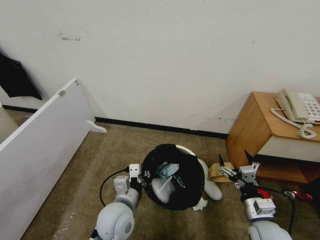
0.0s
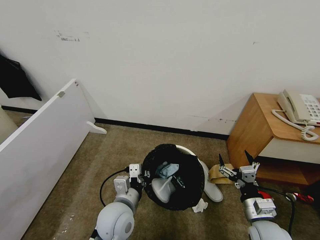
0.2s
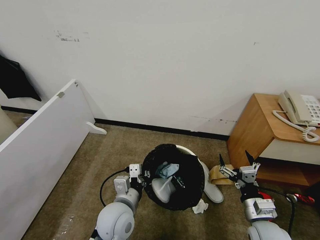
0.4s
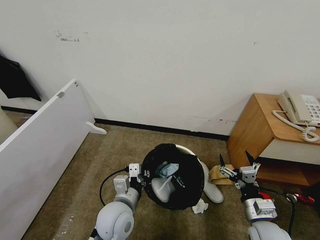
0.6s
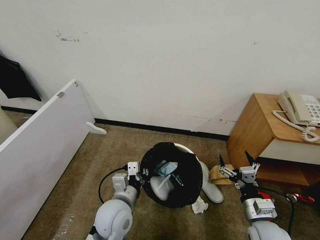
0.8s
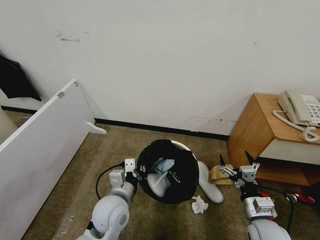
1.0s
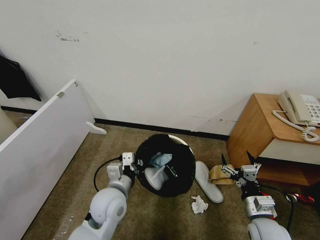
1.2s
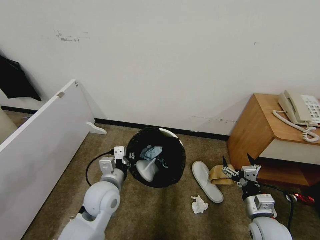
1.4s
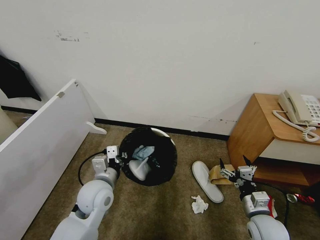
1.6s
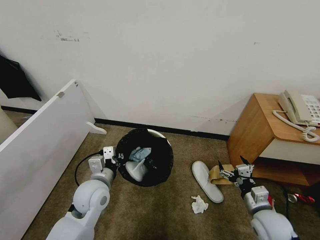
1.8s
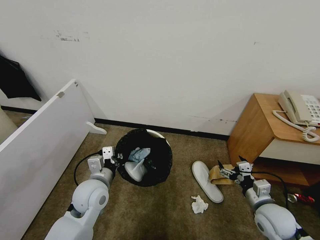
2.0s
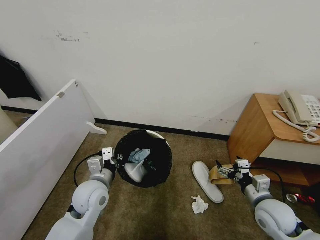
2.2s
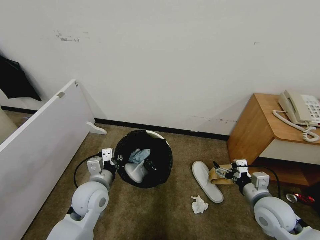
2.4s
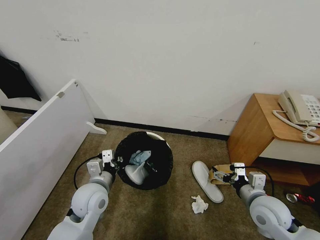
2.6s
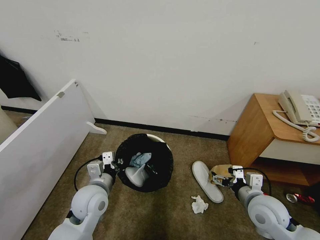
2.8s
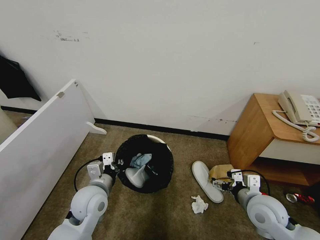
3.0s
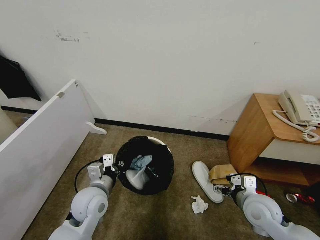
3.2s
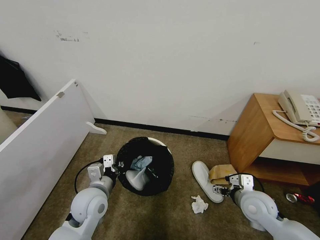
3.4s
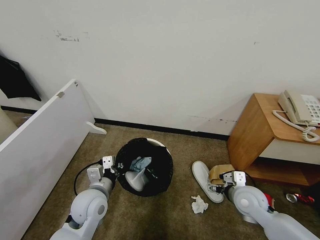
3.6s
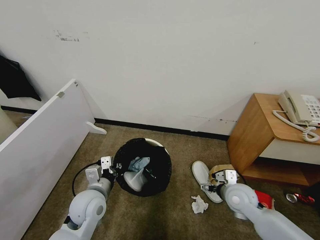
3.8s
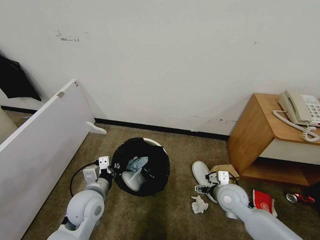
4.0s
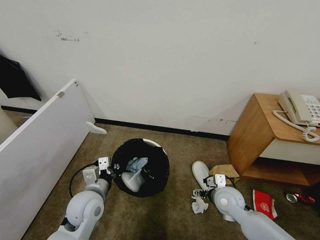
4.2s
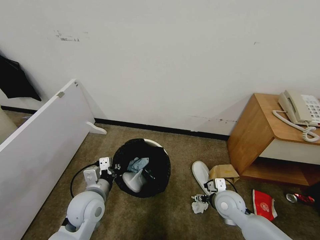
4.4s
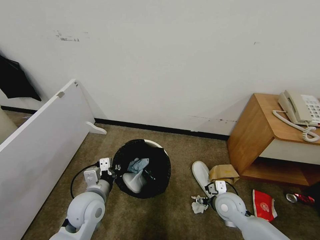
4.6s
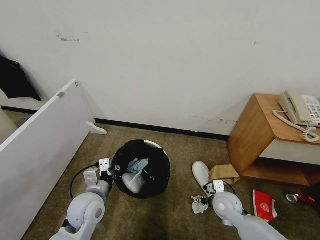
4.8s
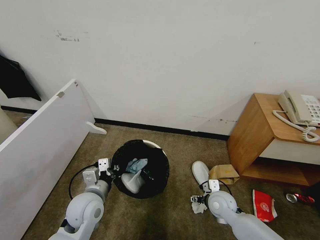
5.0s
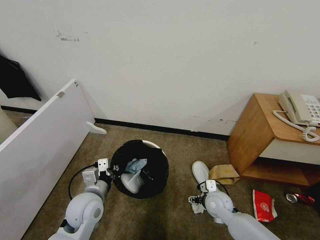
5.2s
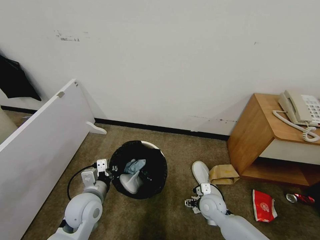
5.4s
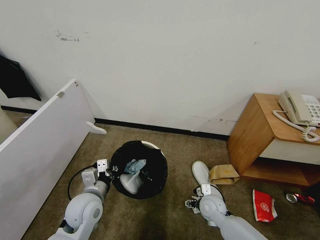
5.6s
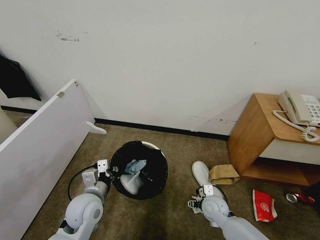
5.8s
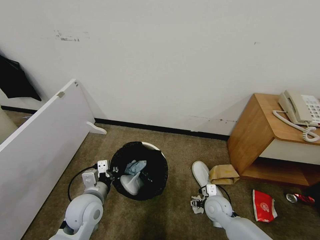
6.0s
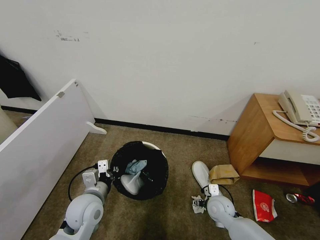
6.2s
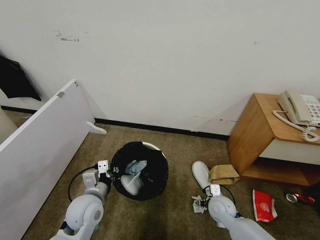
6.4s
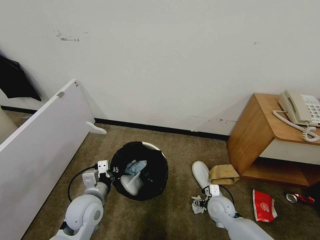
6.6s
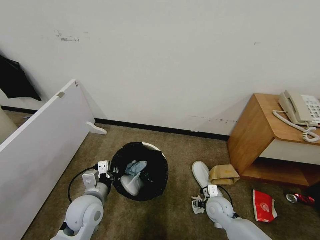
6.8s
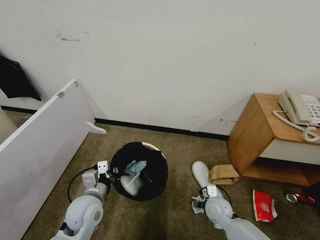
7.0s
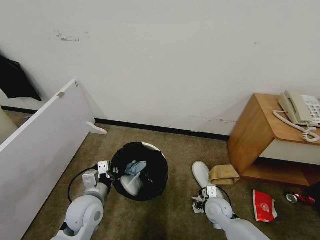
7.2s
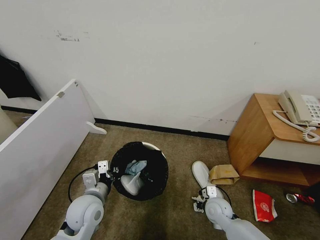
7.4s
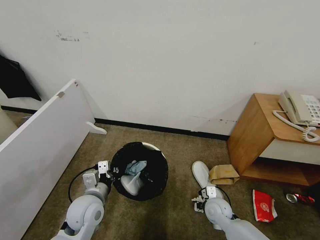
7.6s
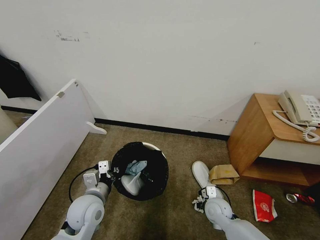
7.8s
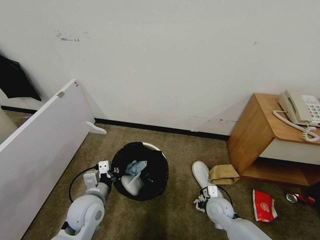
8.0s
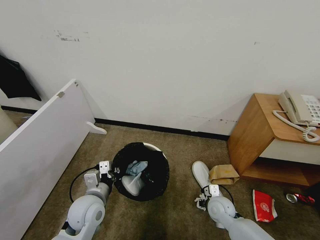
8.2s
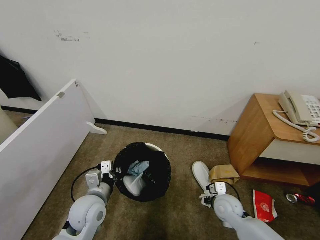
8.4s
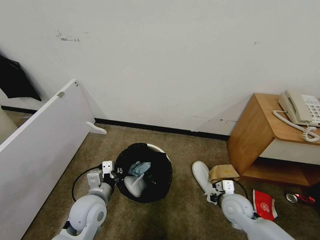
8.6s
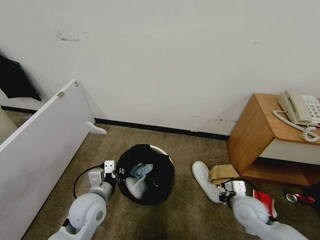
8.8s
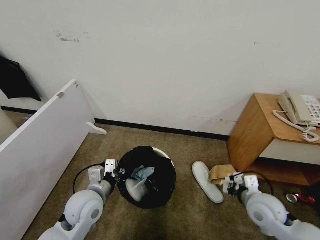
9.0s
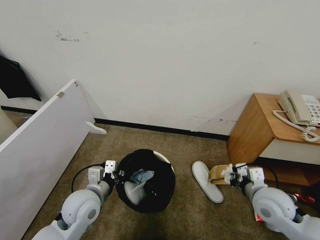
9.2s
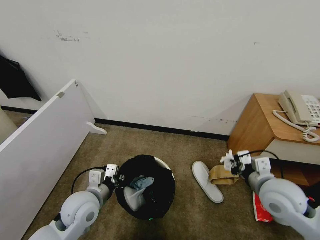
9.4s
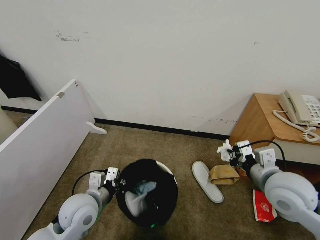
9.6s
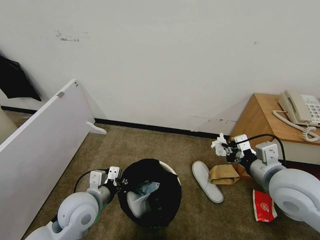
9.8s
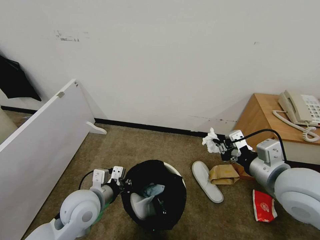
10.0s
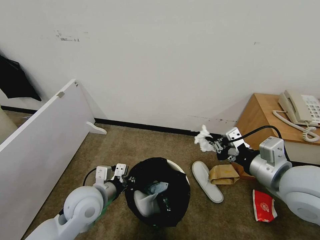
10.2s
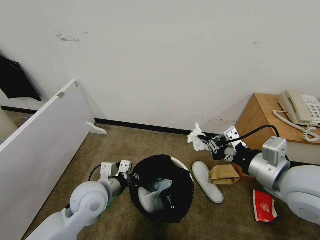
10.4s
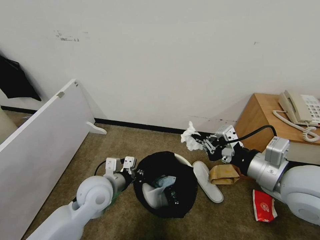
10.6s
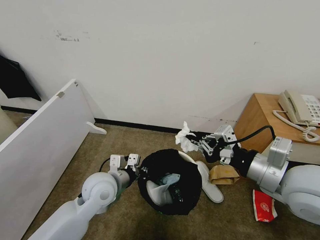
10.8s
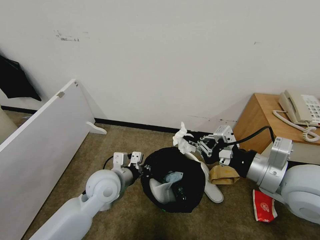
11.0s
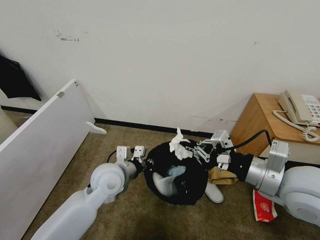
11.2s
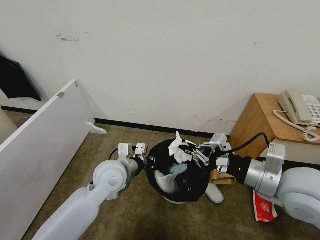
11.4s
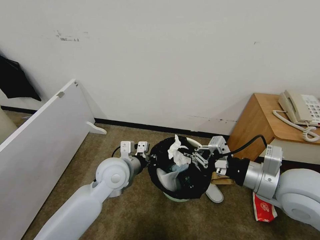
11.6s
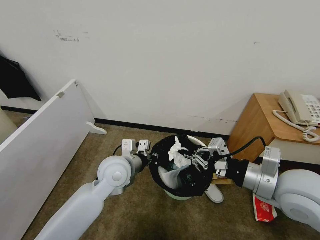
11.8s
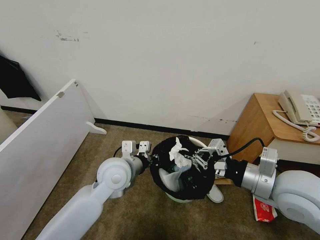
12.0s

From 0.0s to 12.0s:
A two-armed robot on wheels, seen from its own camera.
Task of the whole recording: Pick up the trash bin, then pick up the garbage from the floor and place it into the trash bin.
From 0.0s to 1.6s: The left gripper travels to the left and forward by approximately 10 cm.
From 1.6s to 3.0s: The right gripper heads upward, covering approximately 5 cm.
From 3.0s to 4.4s: The right gripper goes some 10 cm downward and to the left.
From 4.4s to 6.0s: The right gripper travels downward by some 5 cm.
From 6.0s to 7.6s: The right gripper closes.
From 7.6s to 9.0s: The right gripper moves upward and to the right, approximately 15 cm.
From 9.0s to 10.4s: The right gripper is displaced upward by some 20 cm.
From 10.4s to 12.0s: The left gripper is displaced to the right and forward by some 10 cm.

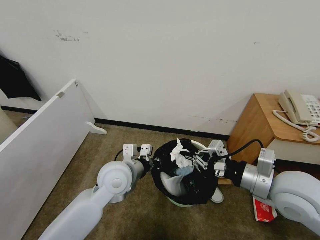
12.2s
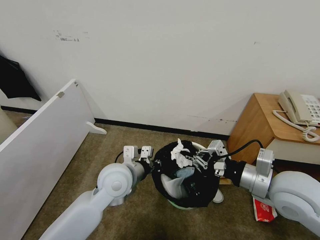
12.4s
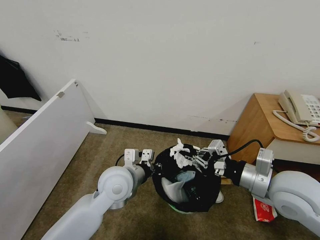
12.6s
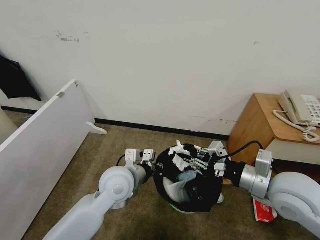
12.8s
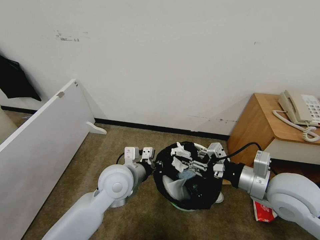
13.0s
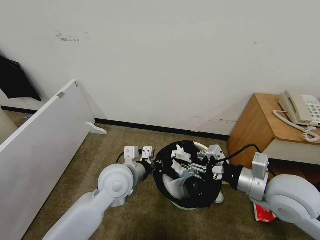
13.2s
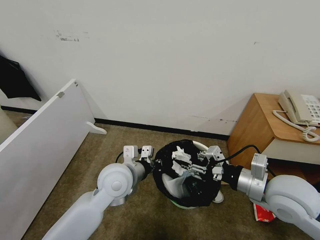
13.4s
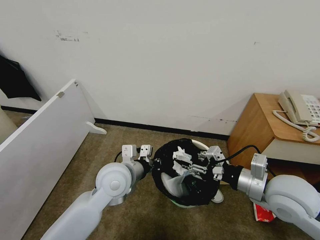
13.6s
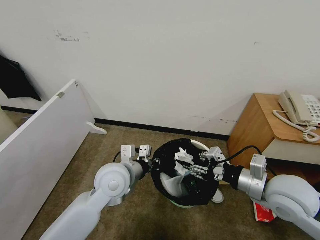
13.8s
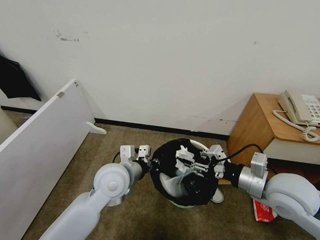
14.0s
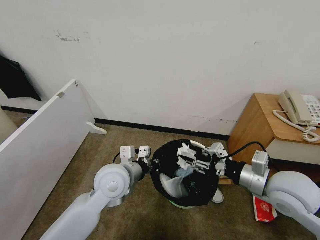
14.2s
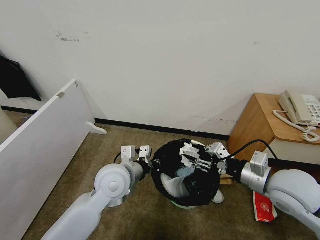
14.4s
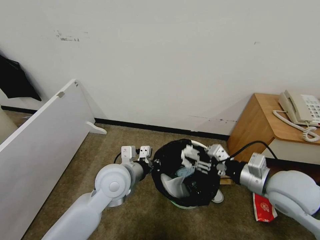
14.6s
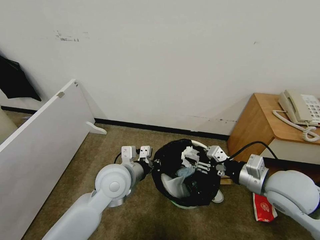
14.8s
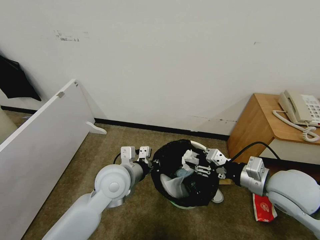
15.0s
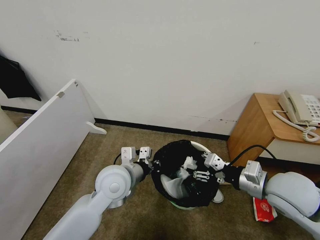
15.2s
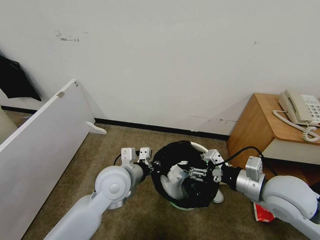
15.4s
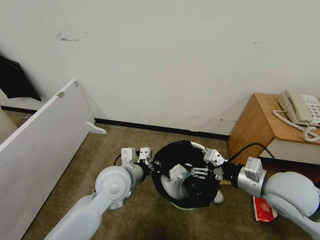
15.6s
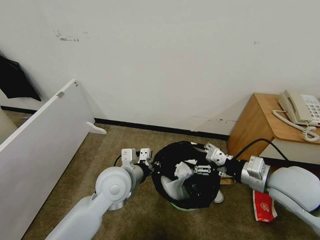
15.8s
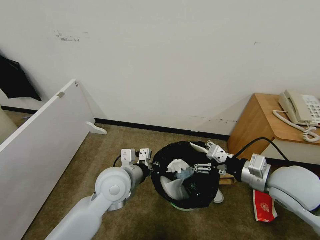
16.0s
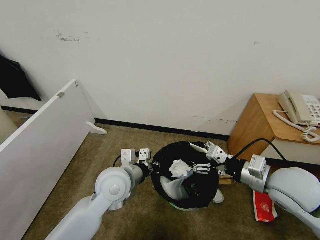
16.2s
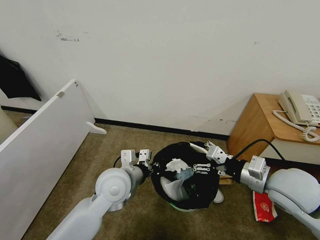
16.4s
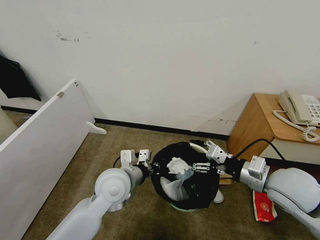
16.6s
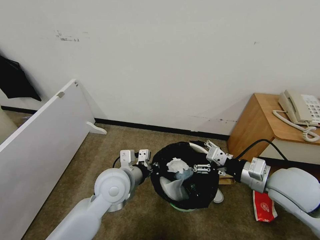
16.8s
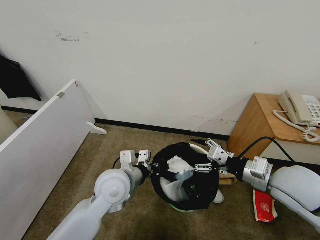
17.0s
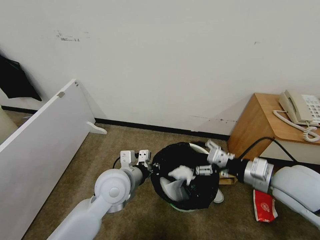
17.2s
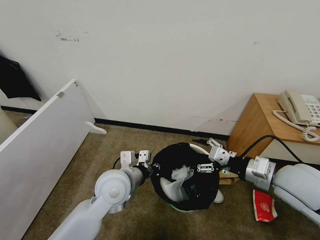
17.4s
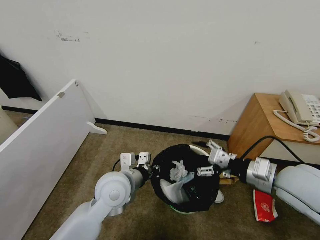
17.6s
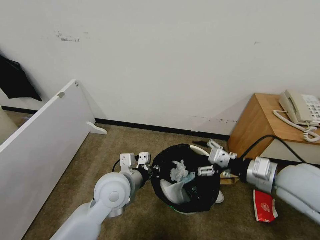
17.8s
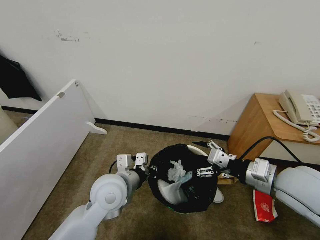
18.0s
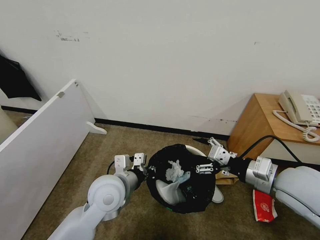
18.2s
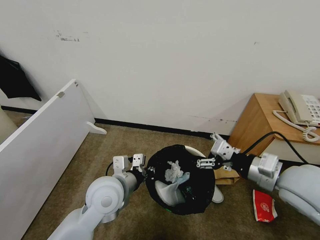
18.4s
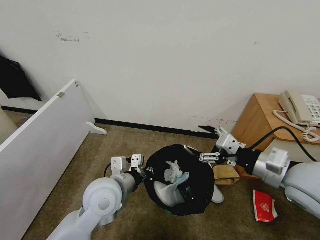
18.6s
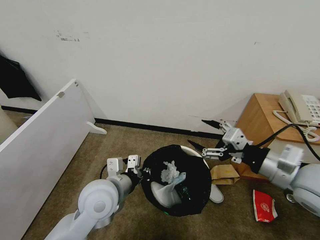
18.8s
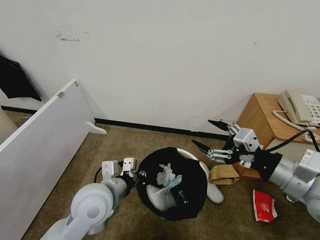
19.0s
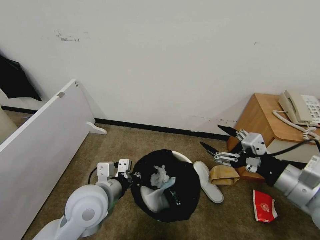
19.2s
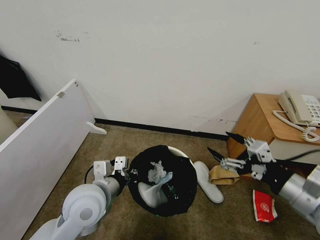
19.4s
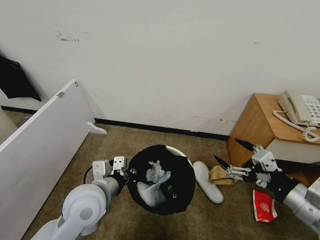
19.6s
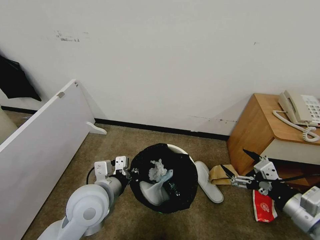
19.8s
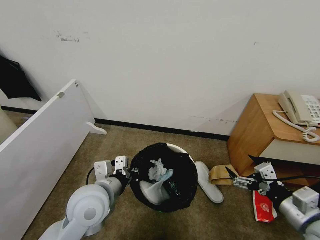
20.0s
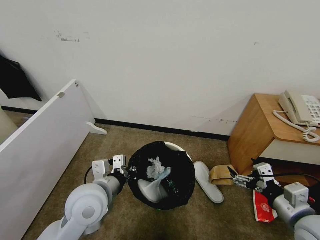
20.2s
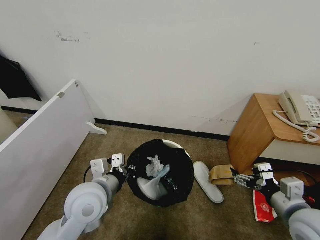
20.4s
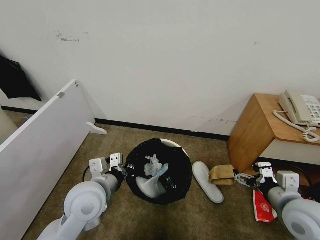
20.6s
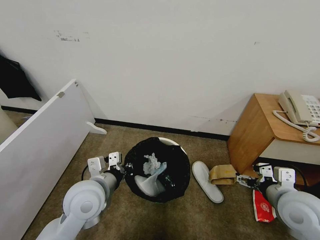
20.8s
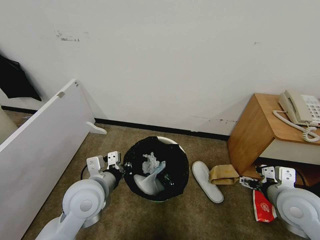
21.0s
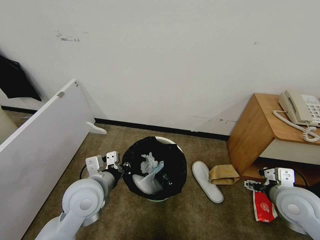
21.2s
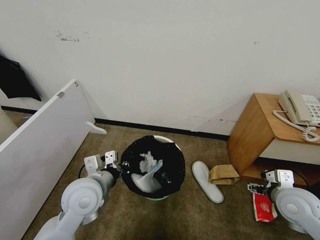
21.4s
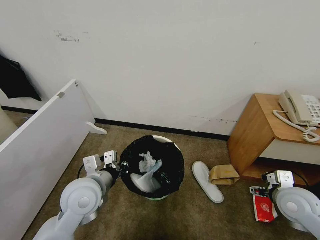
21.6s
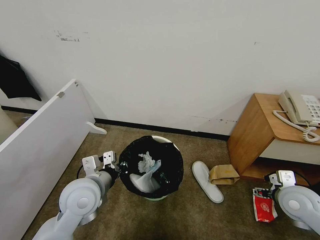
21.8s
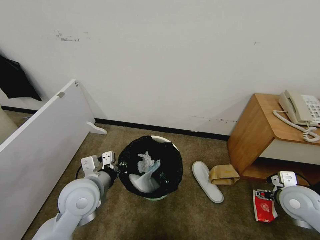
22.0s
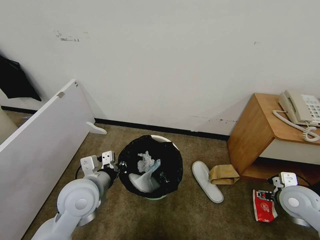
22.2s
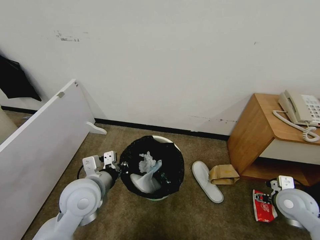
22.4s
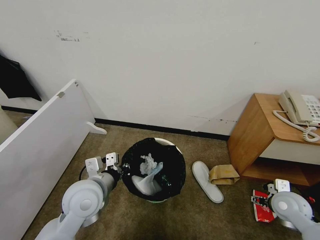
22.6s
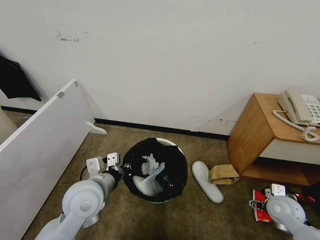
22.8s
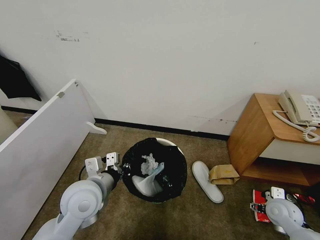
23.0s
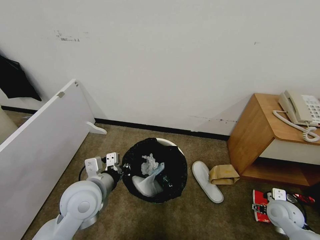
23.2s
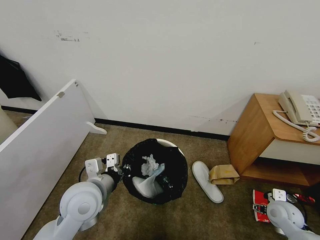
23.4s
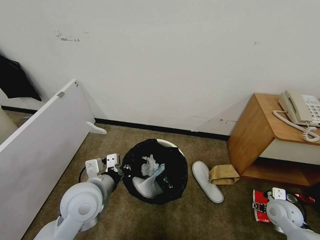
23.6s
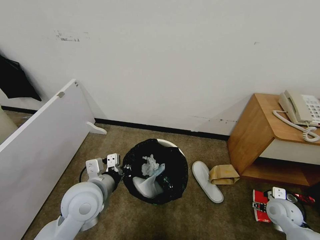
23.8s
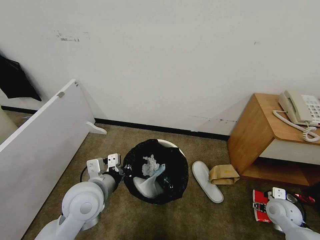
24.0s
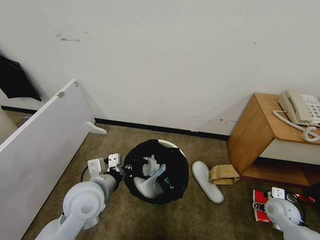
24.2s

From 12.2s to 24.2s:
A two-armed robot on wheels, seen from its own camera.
Task of the whole recording: Pick up the trash bin, then pick up the garbage from the floor and place it into the trash bin.
From 12.2s to 13.8s: The right gripper opens.
From 15.2s to 18.2s: There are only small adjustments of the grippers.
From 18.2s to 19.8s: The right gripper is displaced backward and to the right by some 10 cm.
From 19.8s to 21.2s: The right gripper shifts some 10 cm forward and downward.
From 21.2s to 22.6s: The right gripper travels downward and to the right by approximately 10 cm.
From 22.6s to 24.2s: The right gripper shifts about 10 cm downward.
